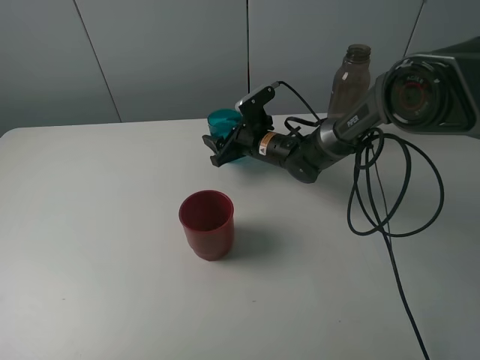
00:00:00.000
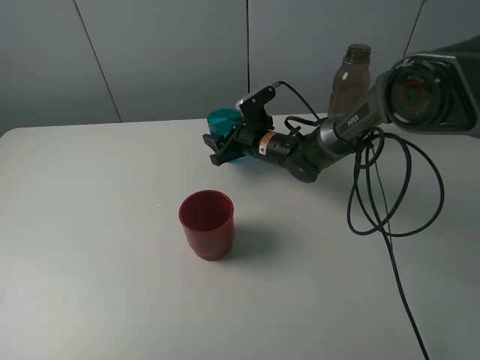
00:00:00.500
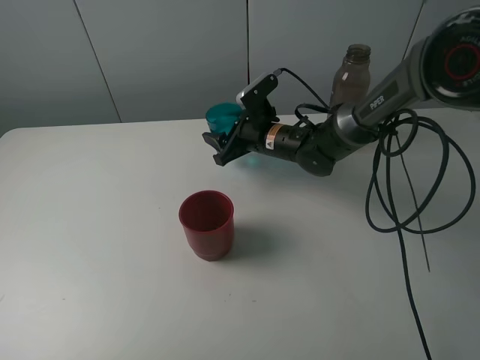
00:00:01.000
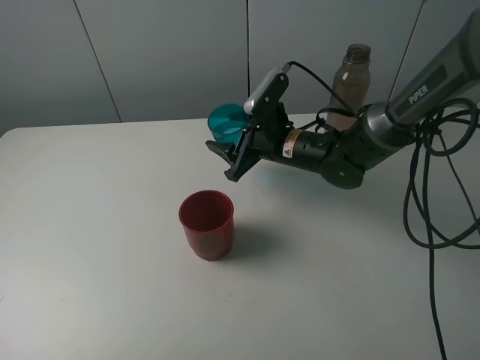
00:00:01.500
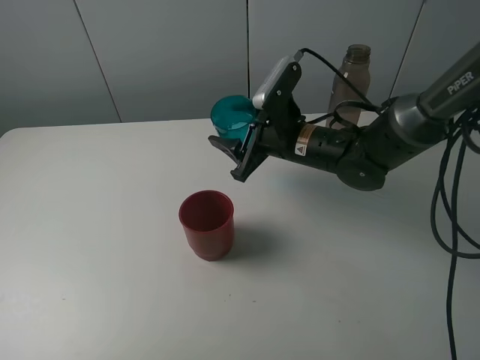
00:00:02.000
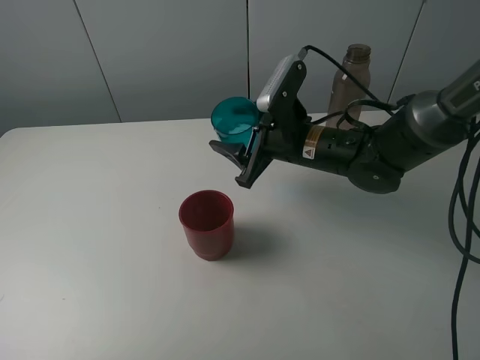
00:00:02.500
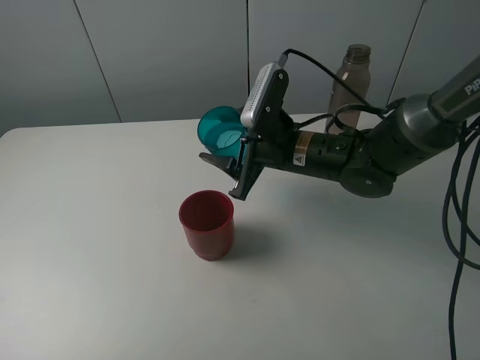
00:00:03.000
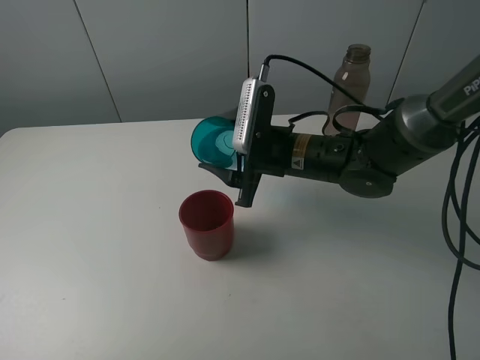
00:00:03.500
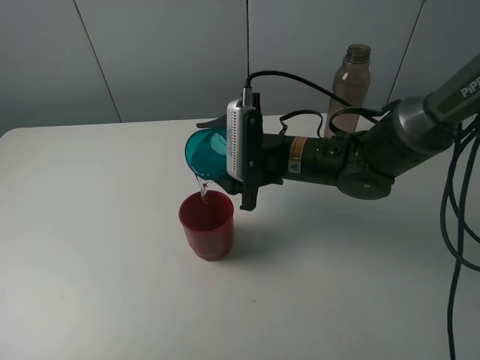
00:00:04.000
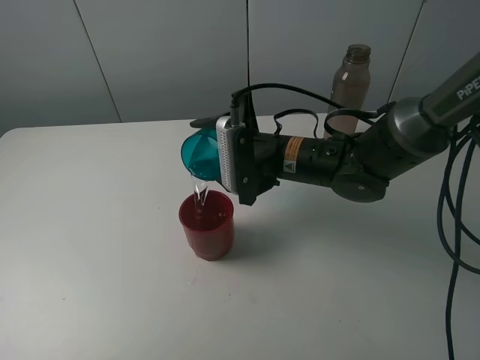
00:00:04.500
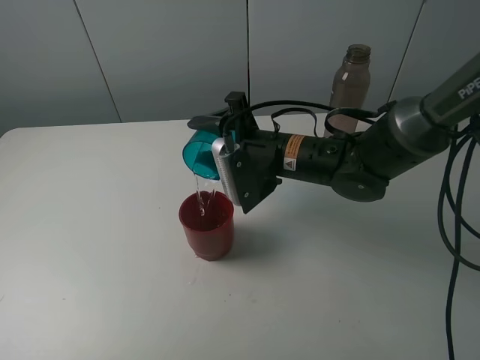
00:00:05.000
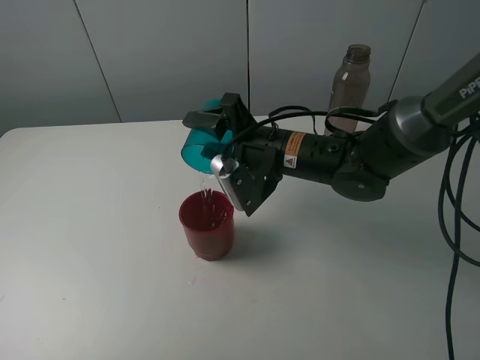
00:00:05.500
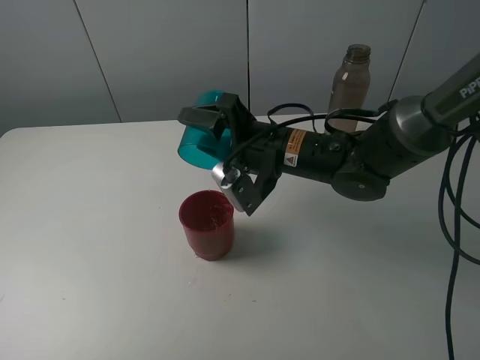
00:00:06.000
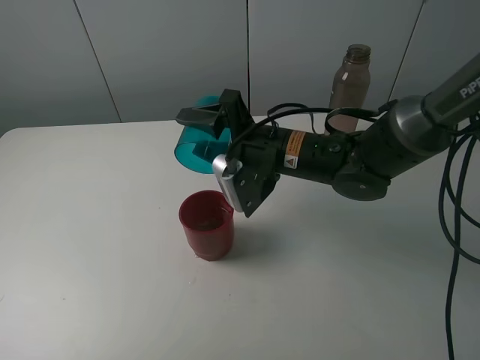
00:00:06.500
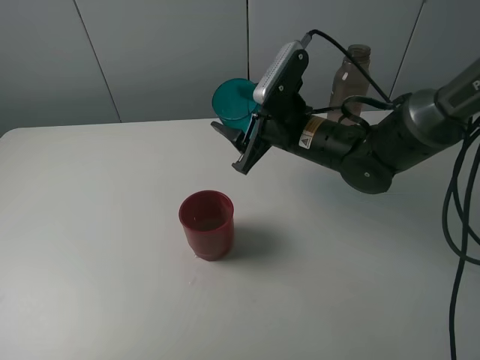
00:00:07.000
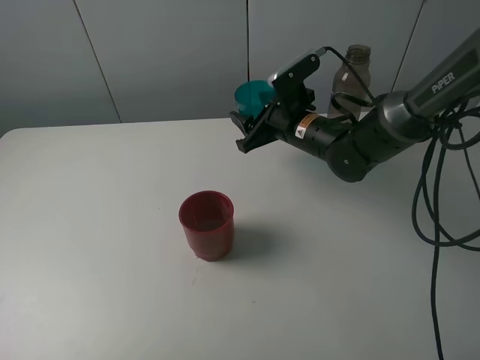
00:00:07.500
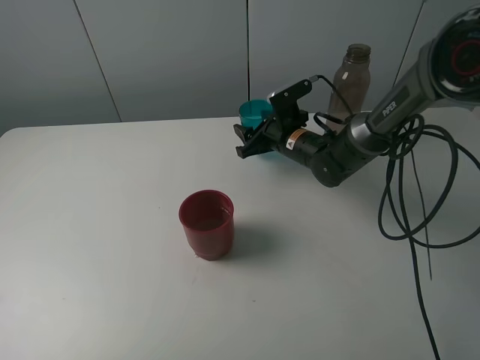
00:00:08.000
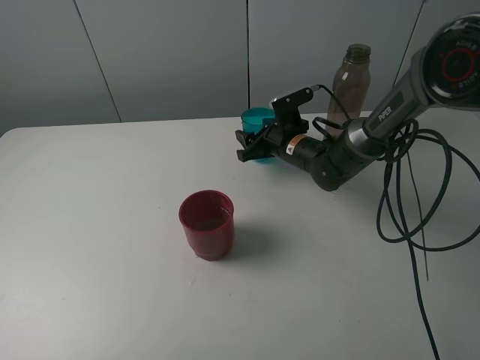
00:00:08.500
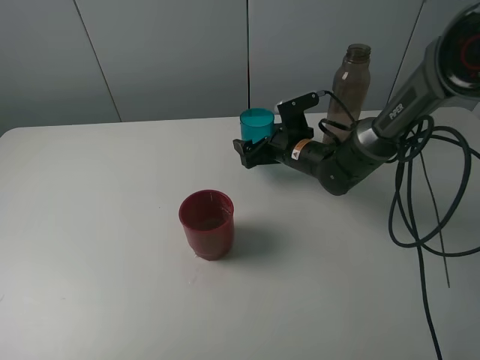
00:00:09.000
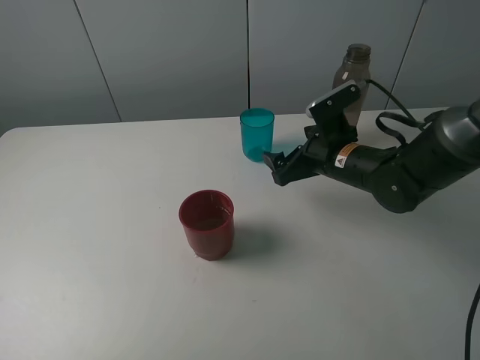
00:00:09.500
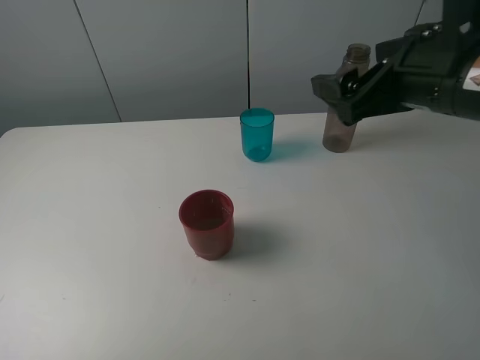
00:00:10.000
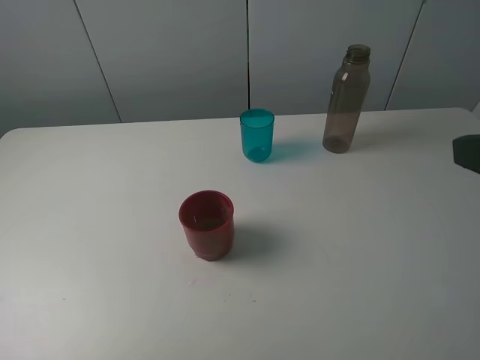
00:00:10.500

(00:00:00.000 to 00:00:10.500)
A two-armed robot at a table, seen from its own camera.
Task of the whole recording: pick up the bottle and pour water into the cup, then pick up the cup containing water and pour it into another cup.
Step, 00:00:00.500 - 00:00:06.000: Pour water from blue cup to red cup with the right gripper.
Step, 00:00:06.500 - 00:00:08.500: Place the blue cup with the right gripper.
00:00:00.000 - 00:00:02.000: The right gripper heads backward and upward, covering some 15 cm.
00:00:06.500 - 00:00:08.500: The right gripper shifts about 15 cm forward and downward.
00:00:08.500 - 00:00:10.500: The right gripper is displaced backward, upward and to the right by roughly 50 cm, and opens its fingers.

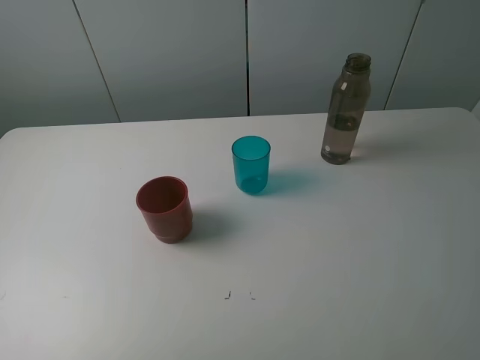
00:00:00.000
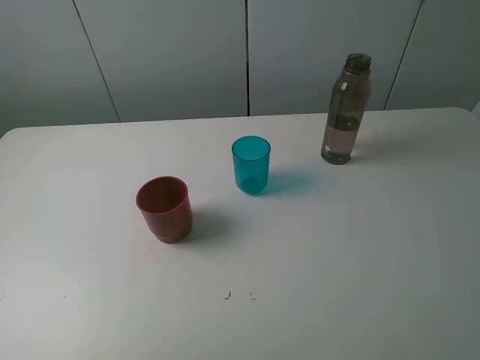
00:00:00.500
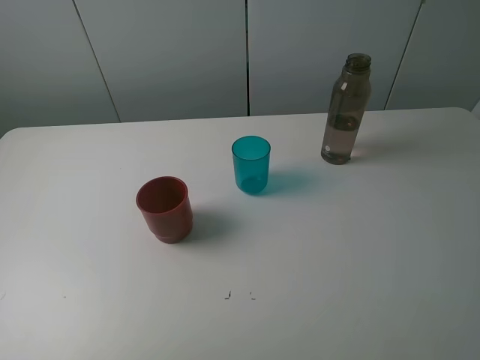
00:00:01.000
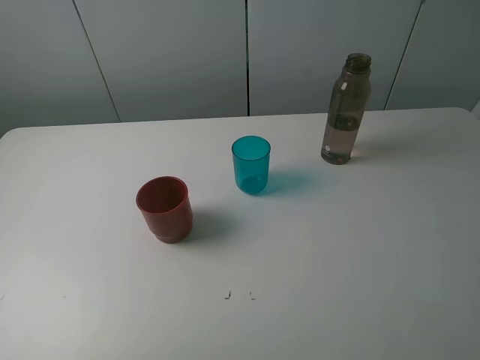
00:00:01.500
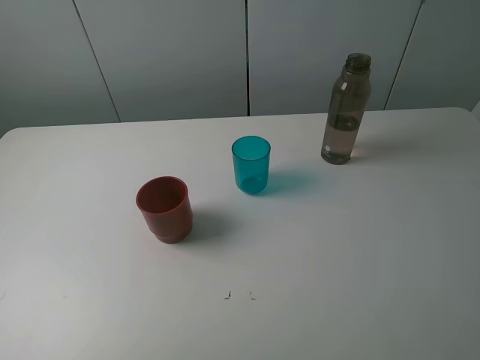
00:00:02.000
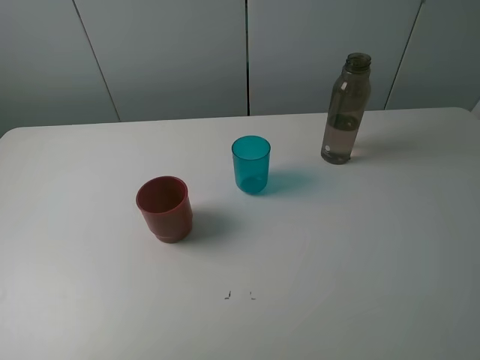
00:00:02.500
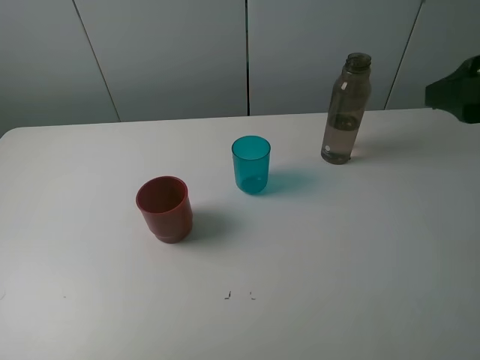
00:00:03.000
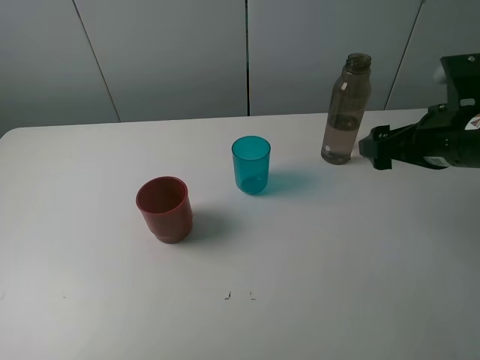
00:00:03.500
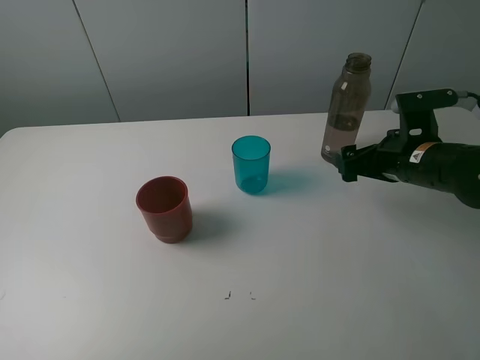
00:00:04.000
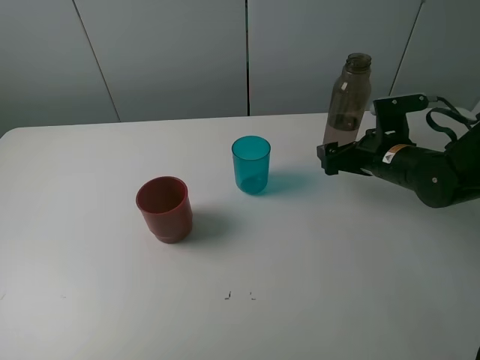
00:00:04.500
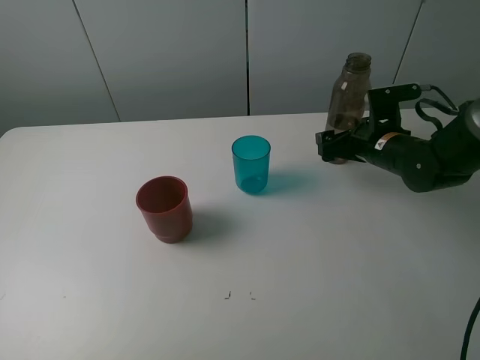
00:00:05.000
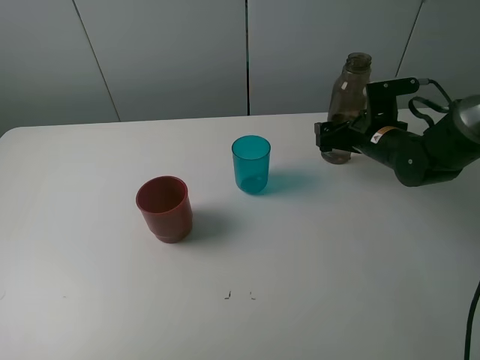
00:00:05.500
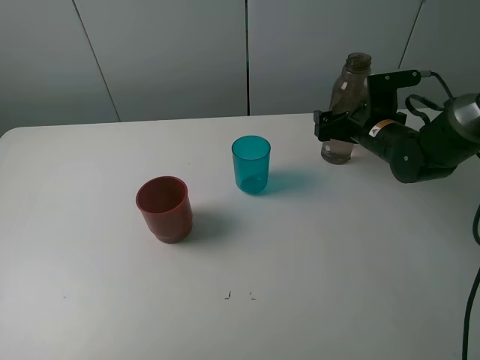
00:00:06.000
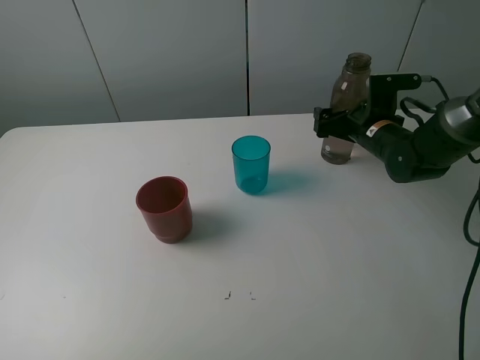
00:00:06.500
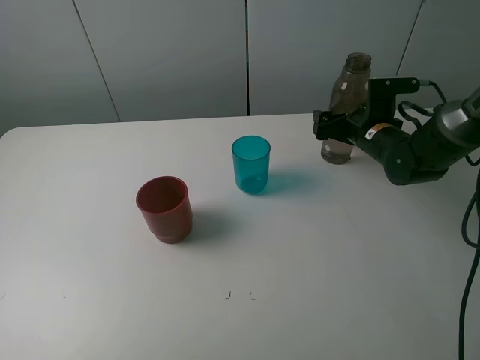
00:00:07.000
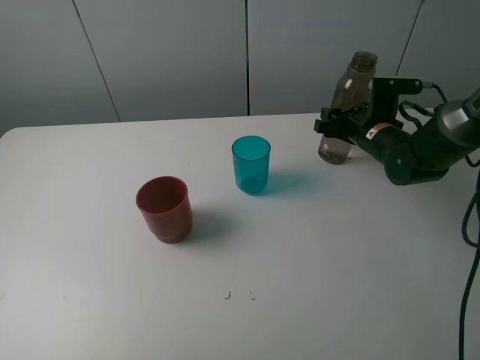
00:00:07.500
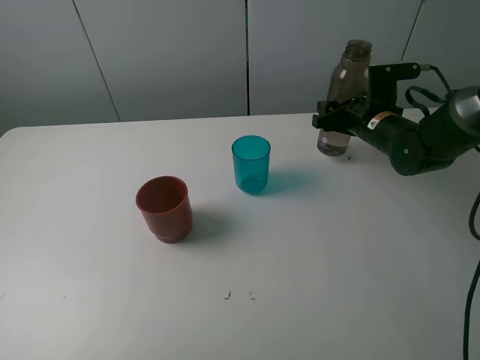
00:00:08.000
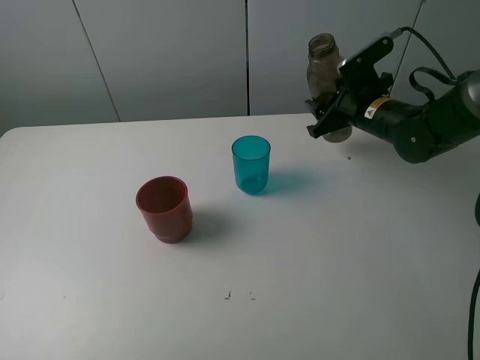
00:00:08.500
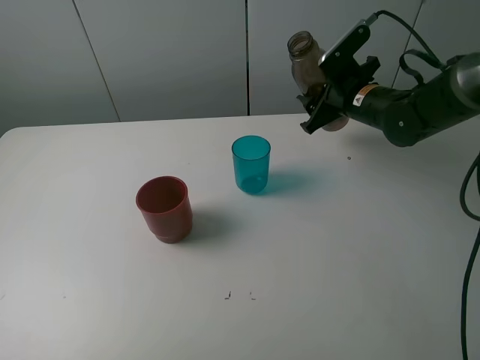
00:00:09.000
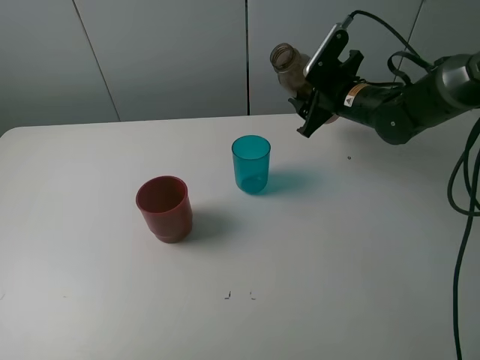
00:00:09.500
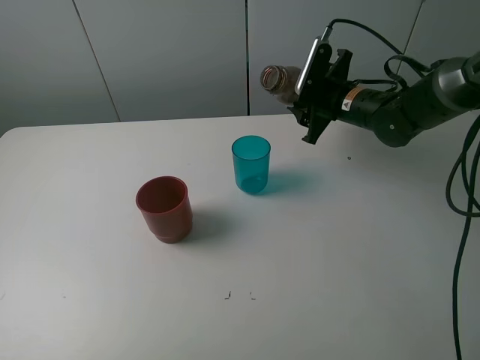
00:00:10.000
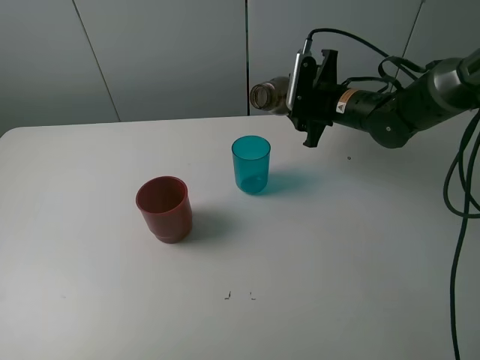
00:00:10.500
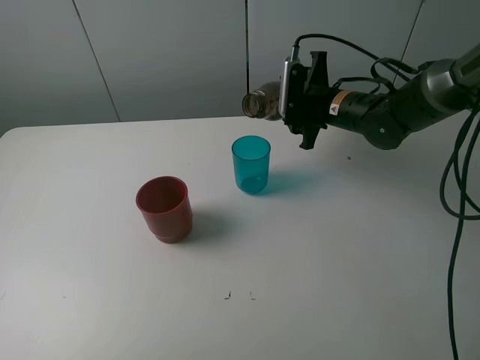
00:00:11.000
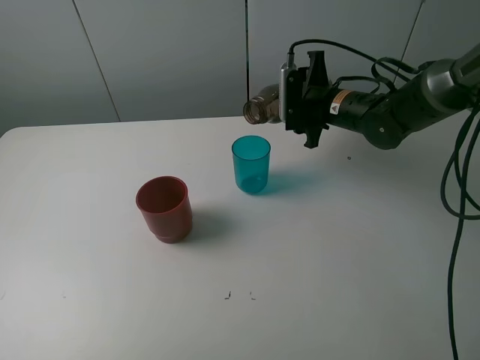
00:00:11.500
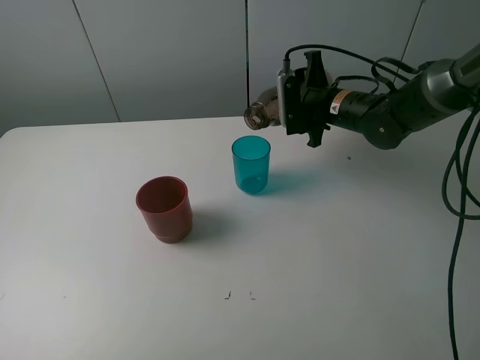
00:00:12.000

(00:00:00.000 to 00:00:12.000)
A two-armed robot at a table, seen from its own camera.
Task of the whole recording: pick up the bottle and pour water into the cup, then pick up the cup containing water and pour it into another cup.
Step, 00:00:00.000 - 00:00:07.000: Grasp the brown bottle with the right gripper.
00:00:00.000 - 00:00:02.000: Both grippers stay about where they are.
00:00:02.000 - 00:00:04.000: The right gripper moves forward and downward, about 30 cm.
00:00:04.000 - 00:00:06.000: The right gripper goes some 10 cm forward.
00:00:06.000 - 00:00:08.000: The right gripper closes.
00:00:08.000 - 00:00:10.000: The right gripper shifts by about 5 cm.

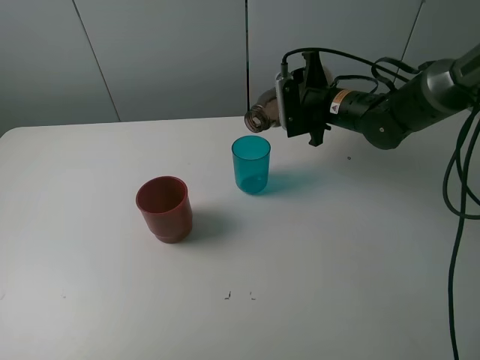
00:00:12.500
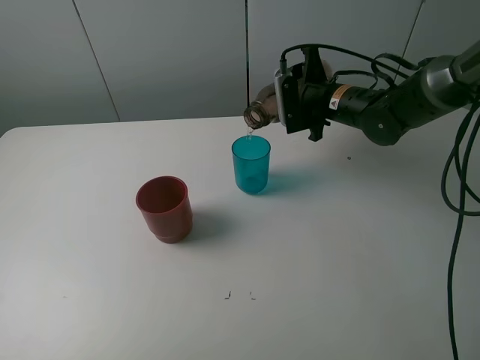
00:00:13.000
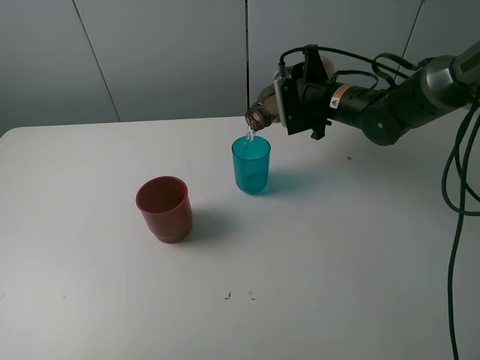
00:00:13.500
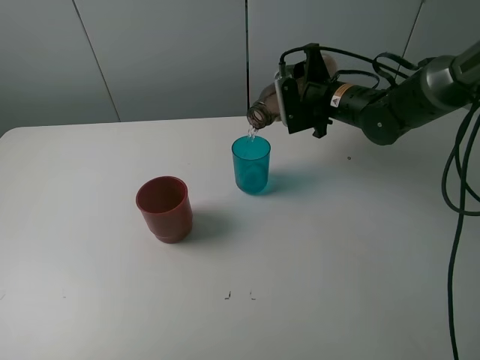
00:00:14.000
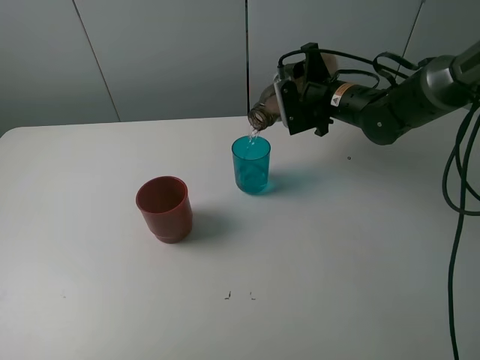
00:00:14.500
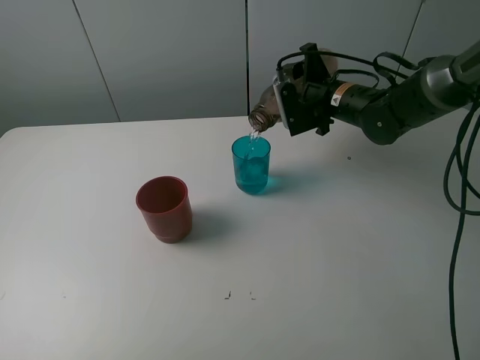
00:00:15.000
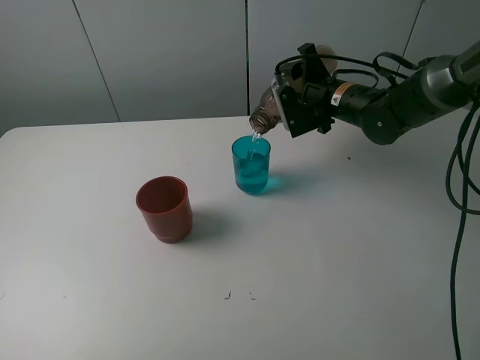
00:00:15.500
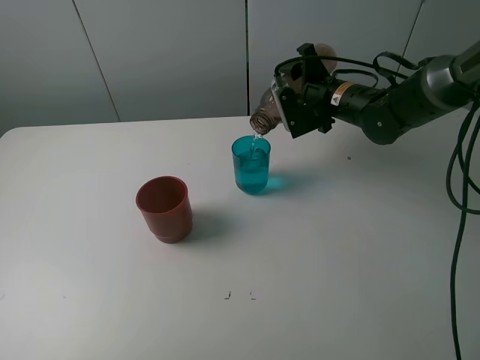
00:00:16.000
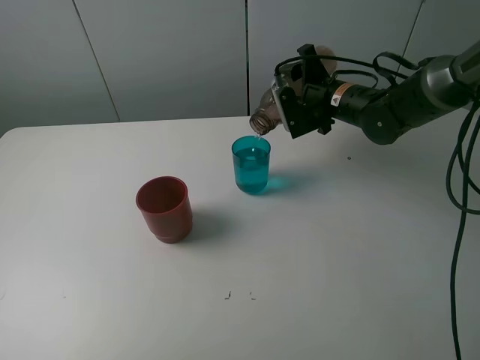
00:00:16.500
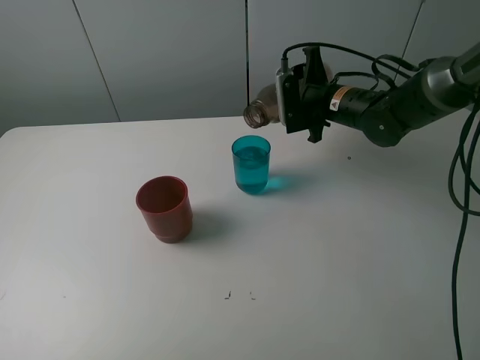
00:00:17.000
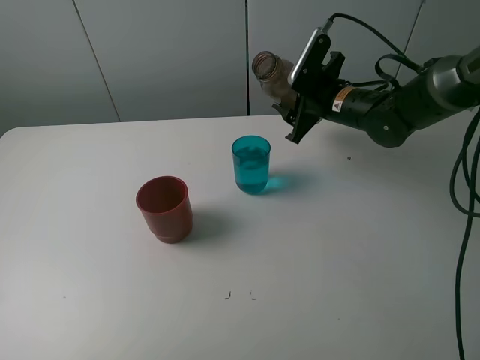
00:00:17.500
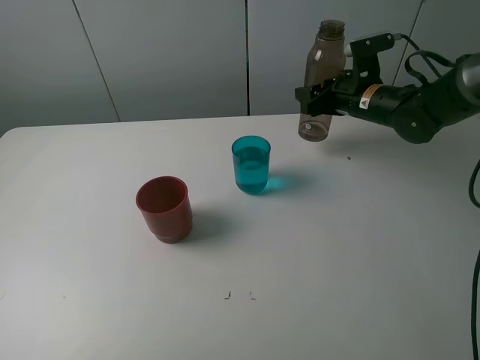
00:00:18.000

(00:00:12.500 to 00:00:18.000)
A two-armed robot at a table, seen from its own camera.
Task of the whole recording: pick up the bottle and pour water into the cup, then pick up the cup containing water and pour it into another cup.
Step, 00:00:12.500 - 00:00:16.500: Pour water from brown bottle to blue cup with the right gripper.
00:00:12.500 - 00:00:16.000: The grippers move only a little.
00:00:16.000 - 00:00:18.000: The right gripper changes place by approximately 5 cm.
